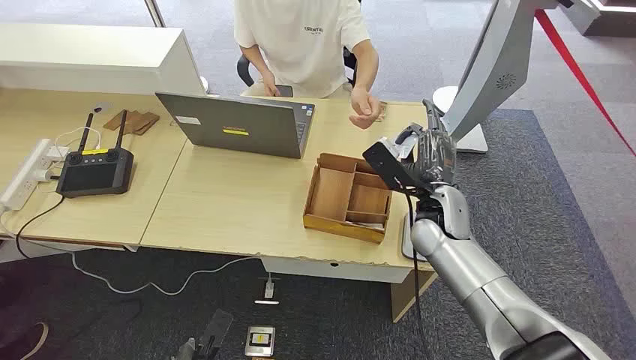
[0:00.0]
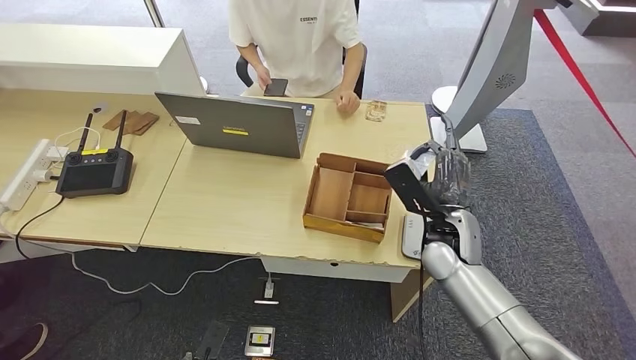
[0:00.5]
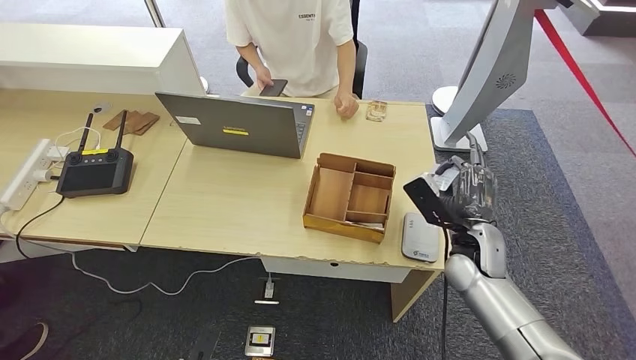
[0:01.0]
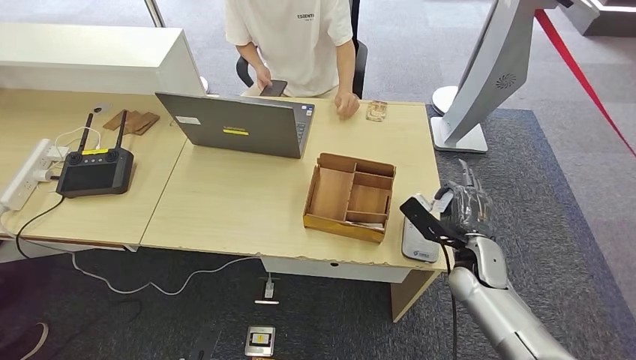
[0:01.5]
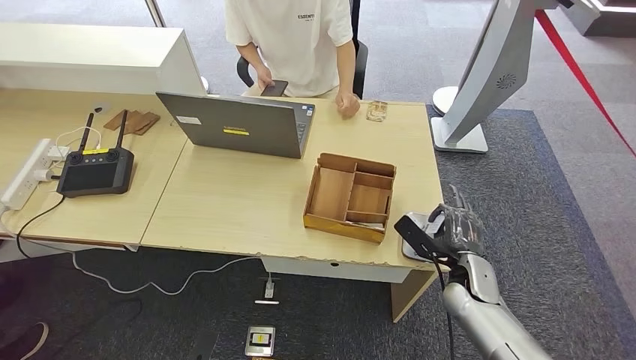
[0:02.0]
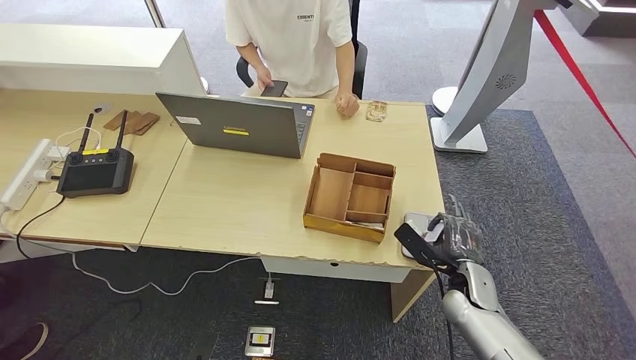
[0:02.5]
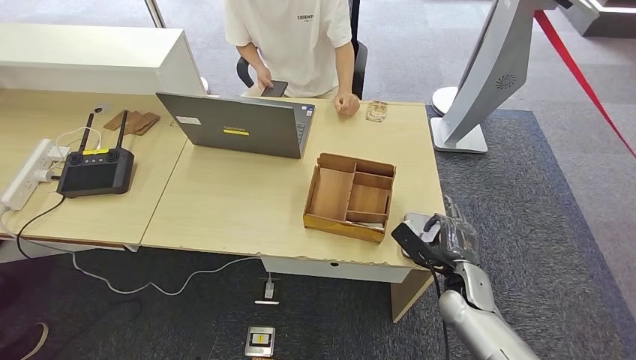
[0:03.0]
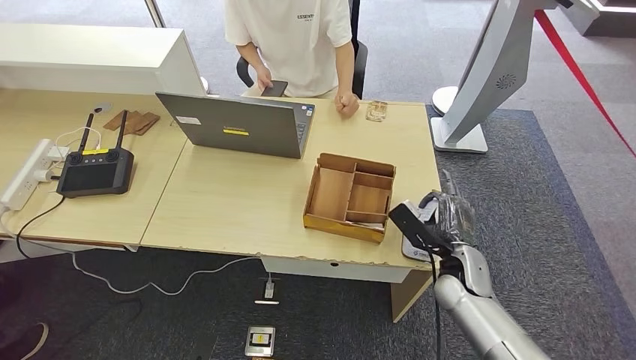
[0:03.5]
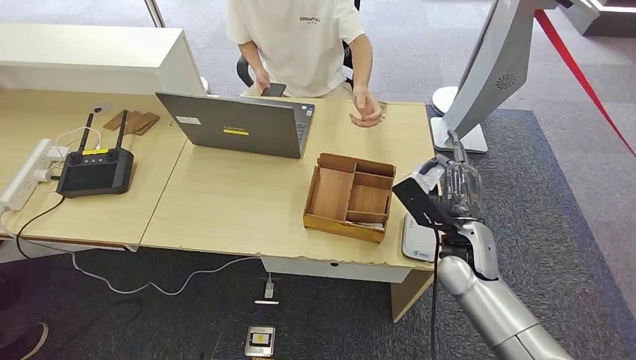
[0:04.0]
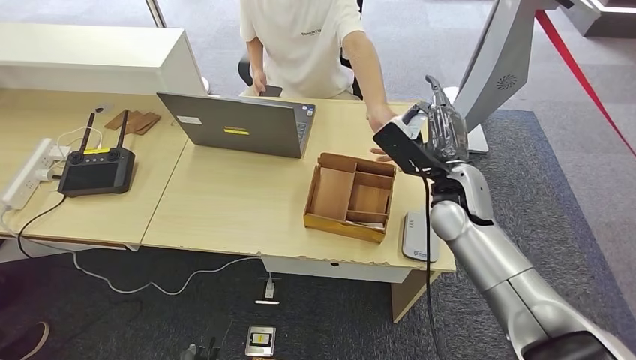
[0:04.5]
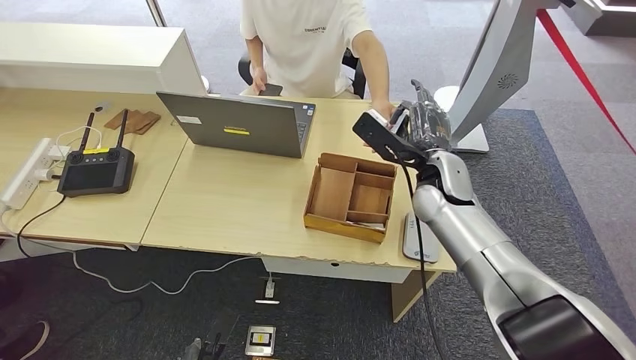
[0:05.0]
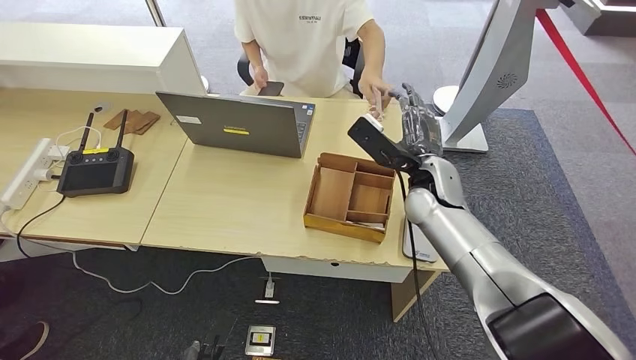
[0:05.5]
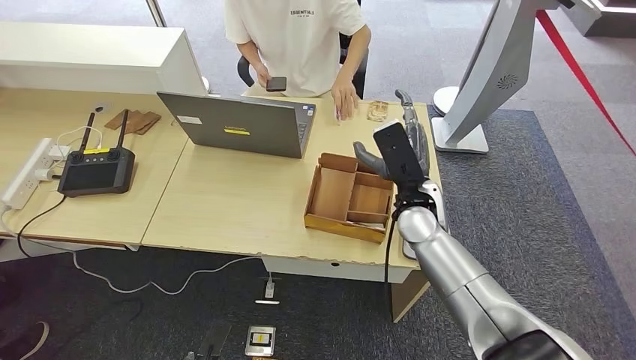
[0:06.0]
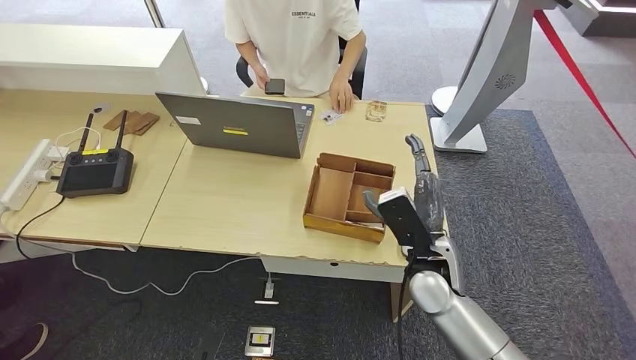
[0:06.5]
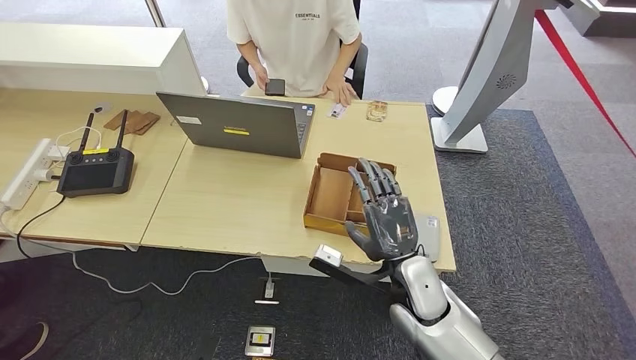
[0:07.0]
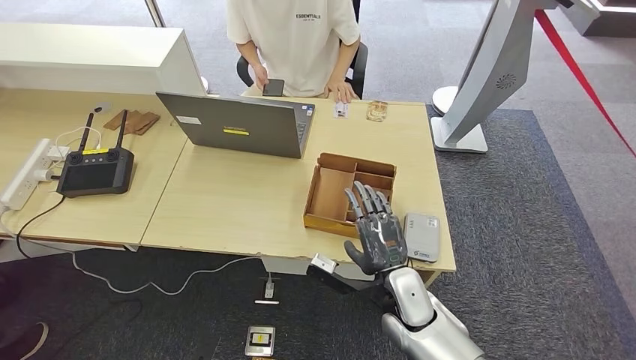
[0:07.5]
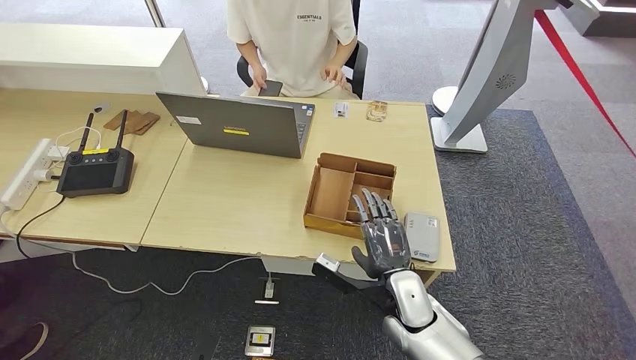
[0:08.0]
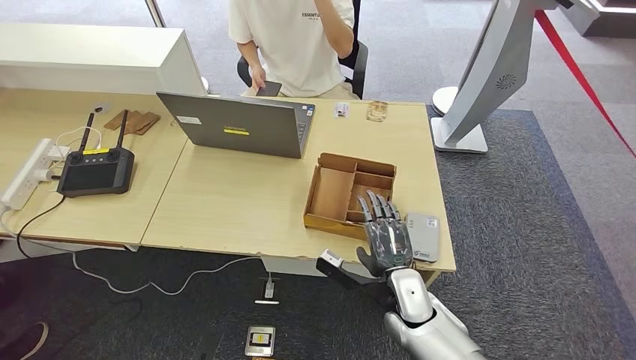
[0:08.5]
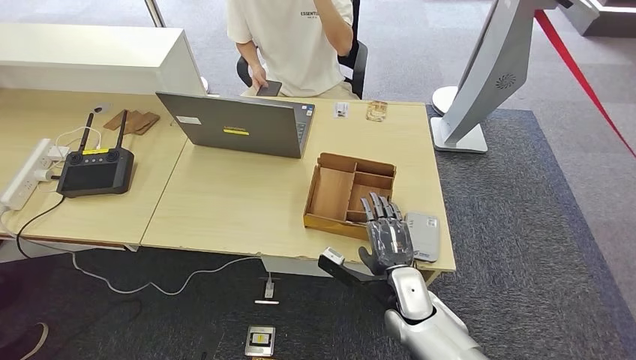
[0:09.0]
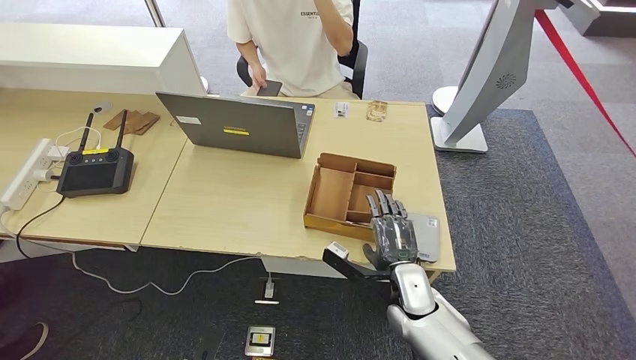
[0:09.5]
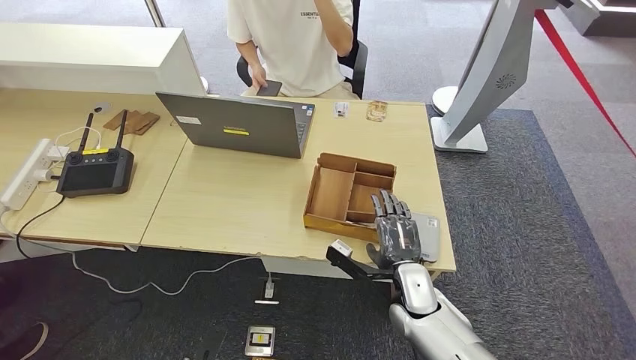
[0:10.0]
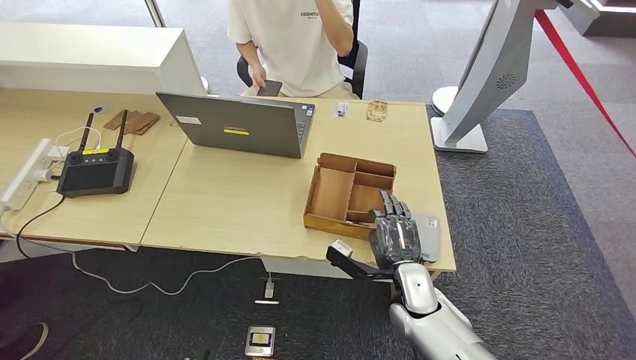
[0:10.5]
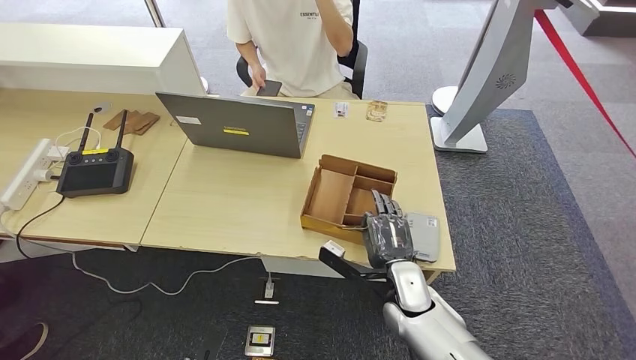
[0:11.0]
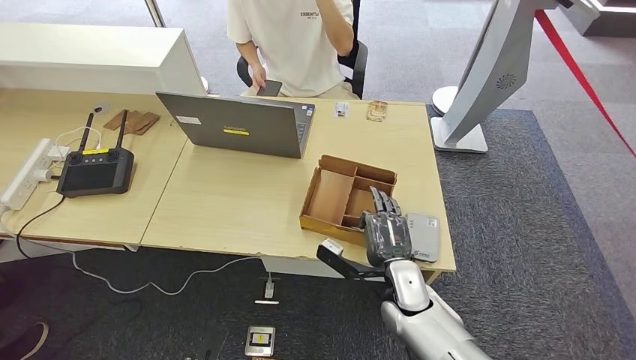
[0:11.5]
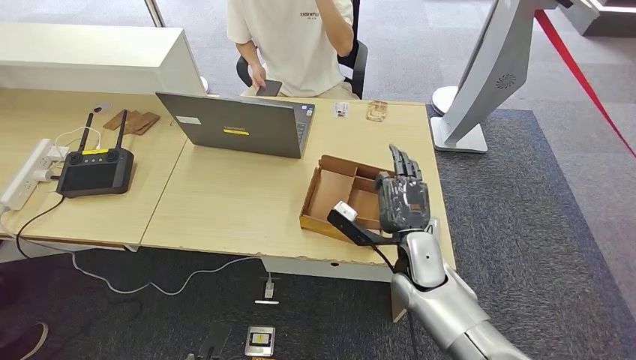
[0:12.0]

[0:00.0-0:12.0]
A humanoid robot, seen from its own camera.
Step, 0:00.0 to 0:01.0: Take the ID card from the person's hand.
Step, 0:01.5 to 0:03.5: Place the ID card on the card reader.
Step, 0:04.0 to 0:07.0: Hand the ID card to the person.
0:02.0 to 0:04.0: The right hand moves upward, approximately 10 cm.
0:04.0 to 0:06.0: The right hand is displaced to the left and upward by approximately 10 cm.
0:06.0 to 0:08.0: The right hand travels downward and backward by approximately 20 cm.
0:08.0 to 0:10.0: The hands move only a little.
0:10.0 to 0:12.0: The right hand is displaced upward by some 5 cm.

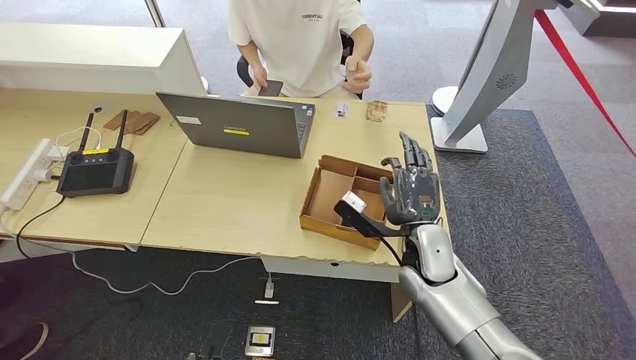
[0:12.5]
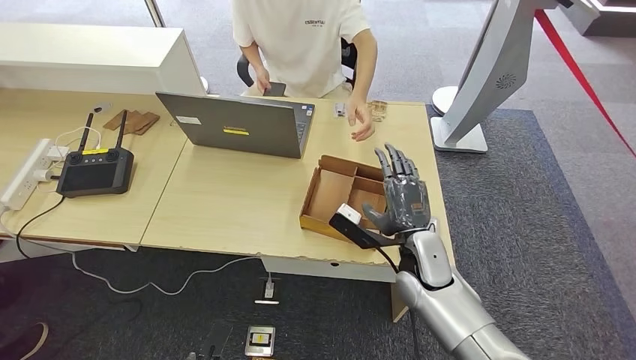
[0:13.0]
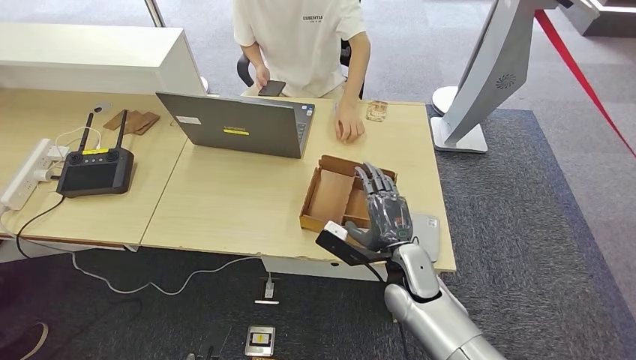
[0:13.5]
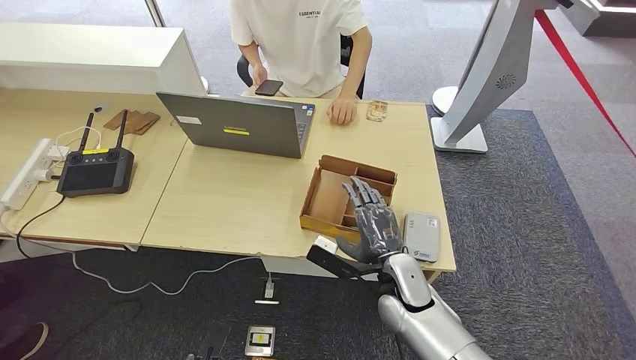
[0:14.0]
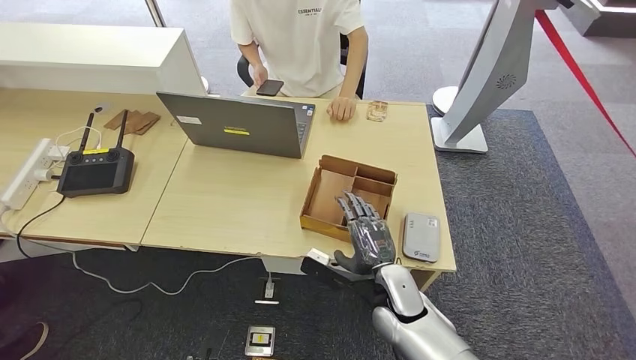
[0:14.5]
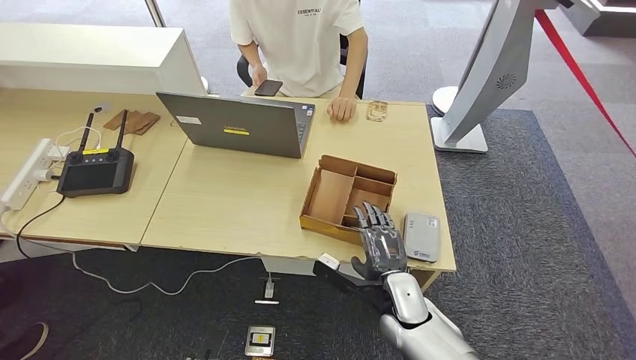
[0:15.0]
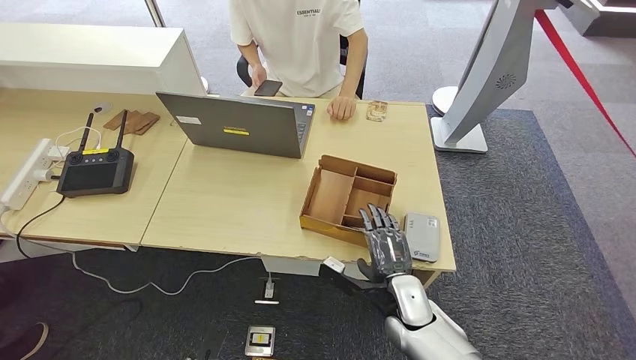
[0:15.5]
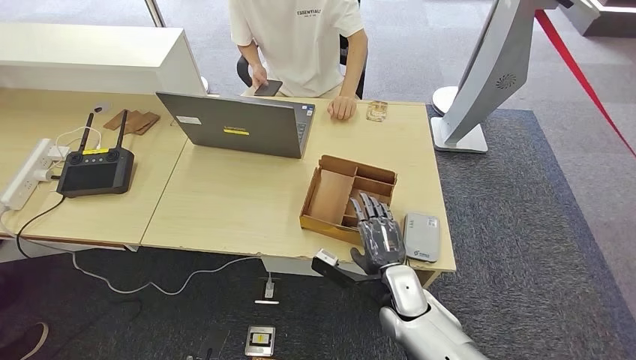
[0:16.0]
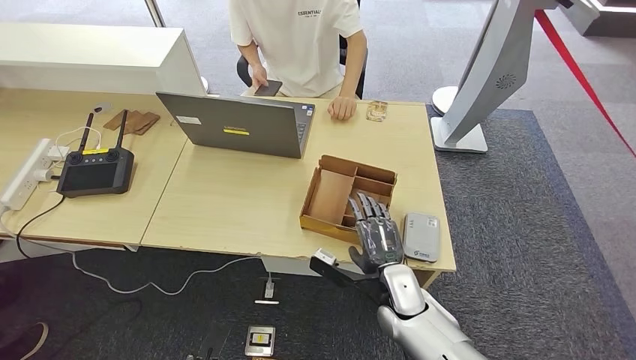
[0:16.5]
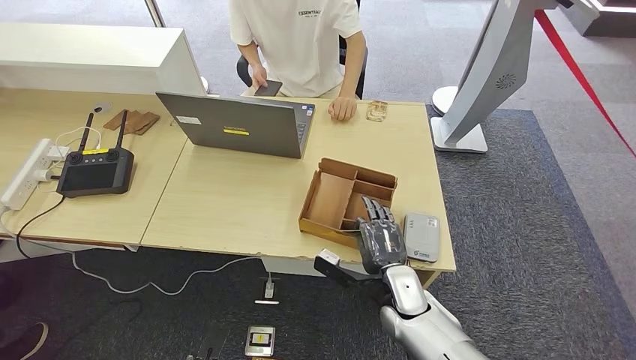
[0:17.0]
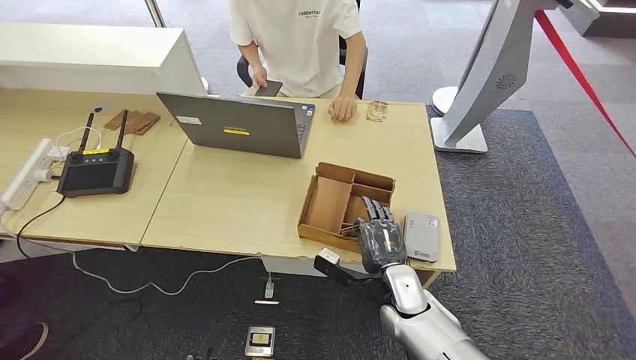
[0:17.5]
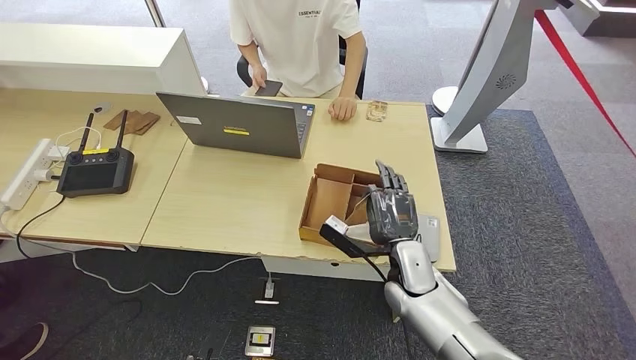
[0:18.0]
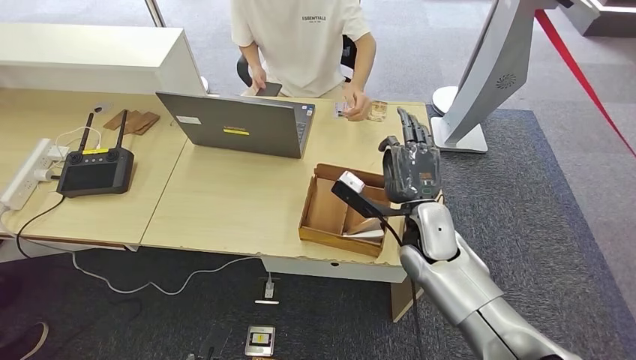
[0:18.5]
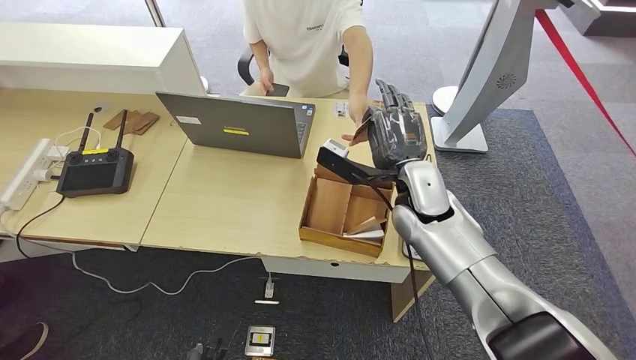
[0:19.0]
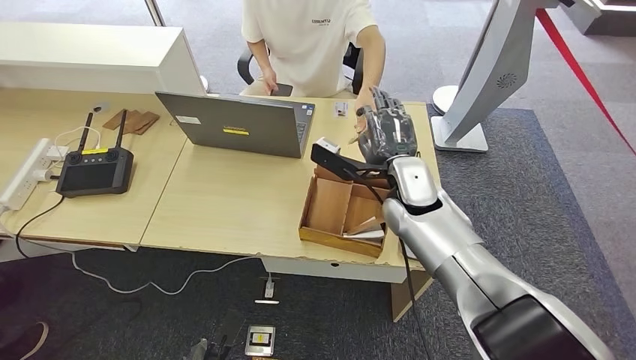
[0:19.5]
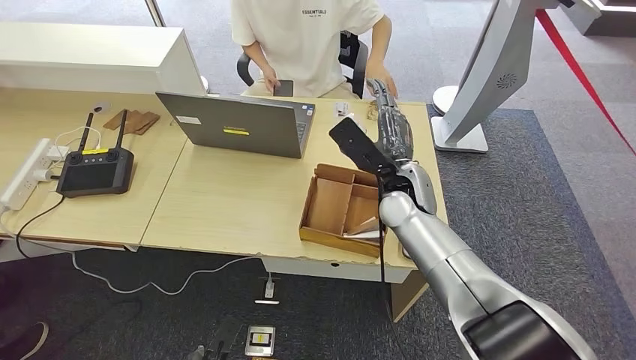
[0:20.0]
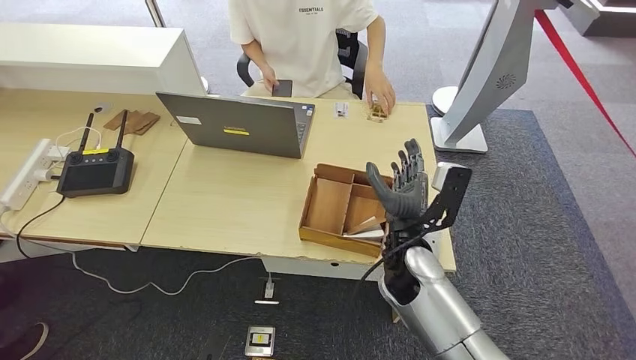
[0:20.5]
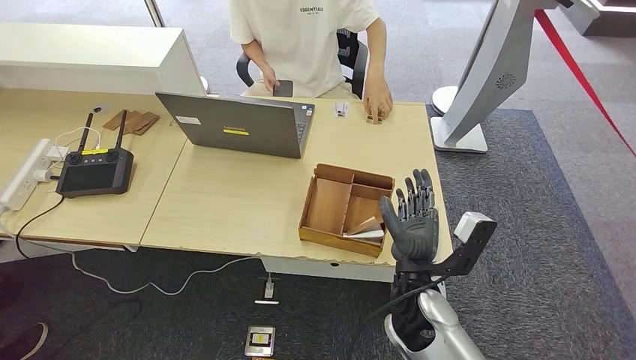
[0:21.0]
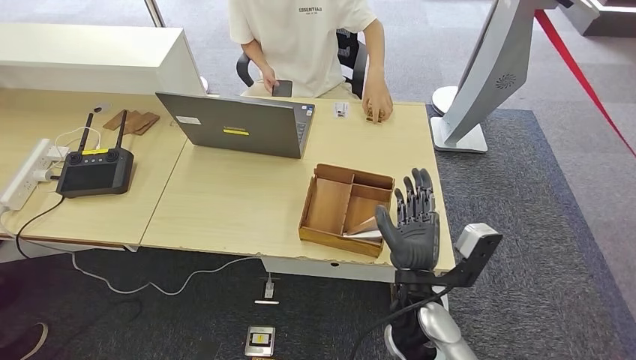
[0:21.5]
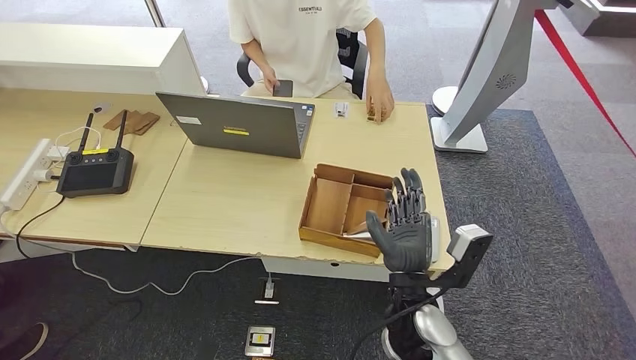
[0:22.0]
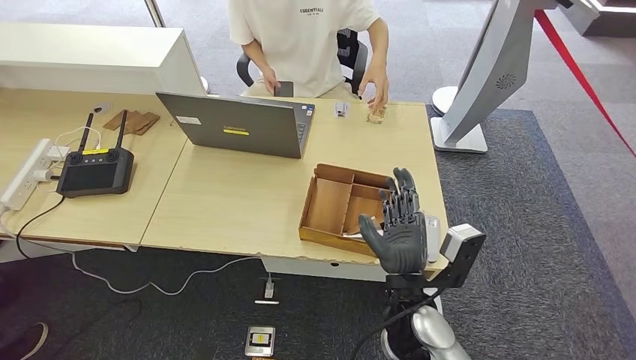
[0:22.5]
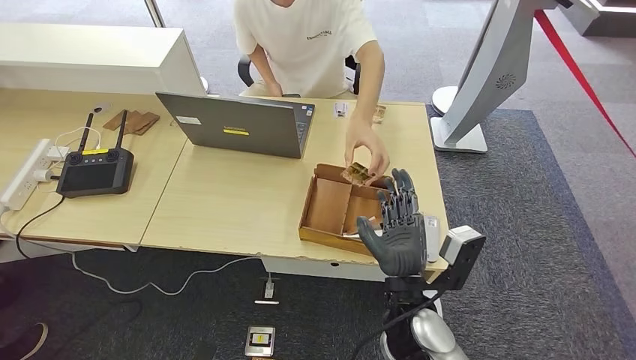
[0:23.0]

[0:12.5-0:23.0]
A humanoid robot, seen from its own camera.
0:12.5 to 0:14.5: The right hand travels downward and backward by some 10 cm.
0:14.5 to 0:16.5: There are only small adjustments of the hands.
0:16.5 to 0:19.0: The right hand shifts roughly 20 cm upward and forward.
0:19.0 to 0:21.0: The right hand is displaced backward and downward by some 15 cm. The left hand ends up roughly 5 cm from where it was.
0:21.0 to 0:23.0: The hands make only small movements.
